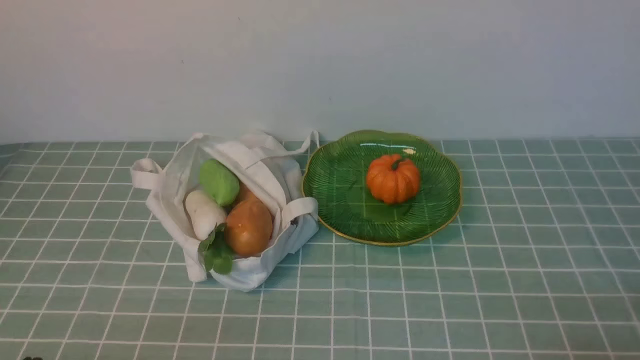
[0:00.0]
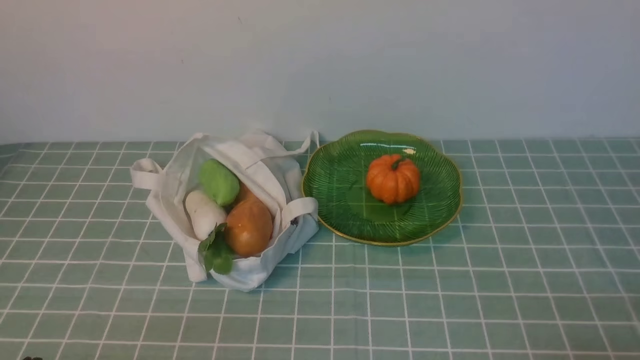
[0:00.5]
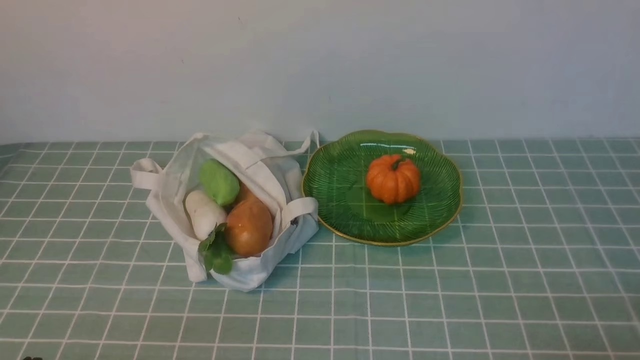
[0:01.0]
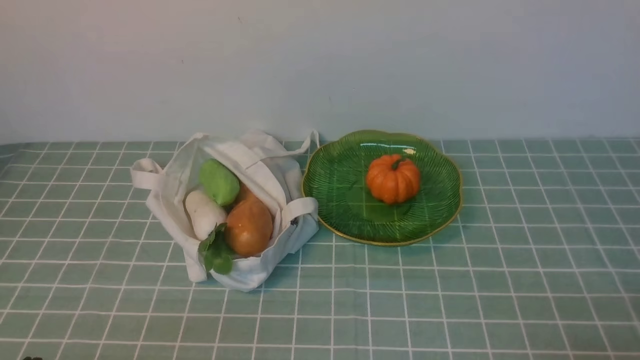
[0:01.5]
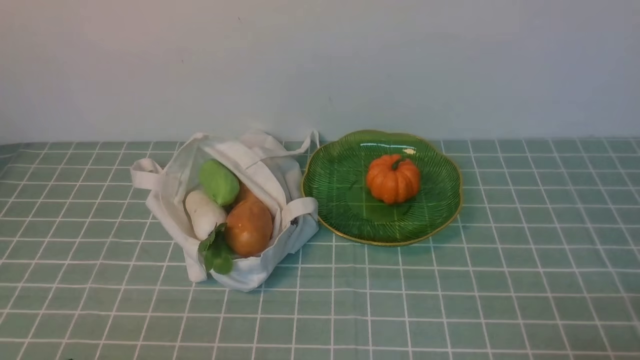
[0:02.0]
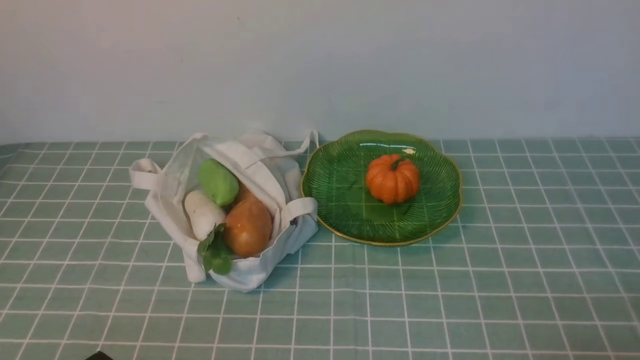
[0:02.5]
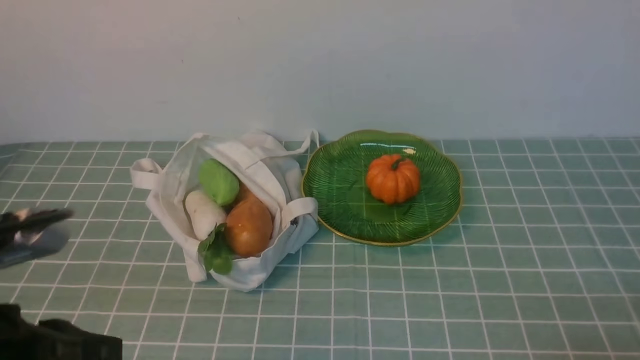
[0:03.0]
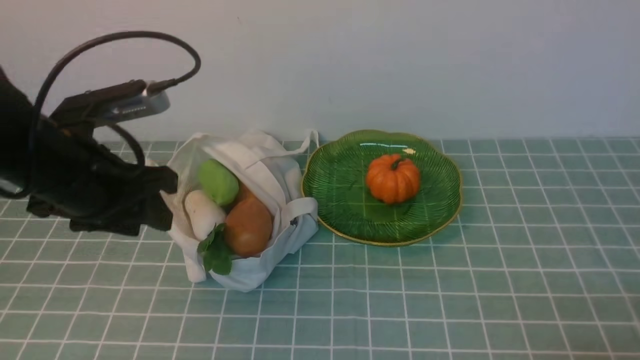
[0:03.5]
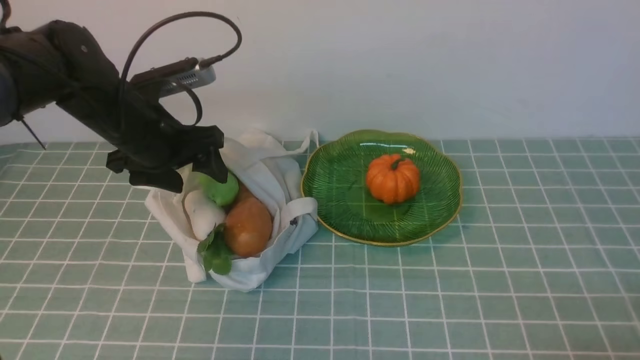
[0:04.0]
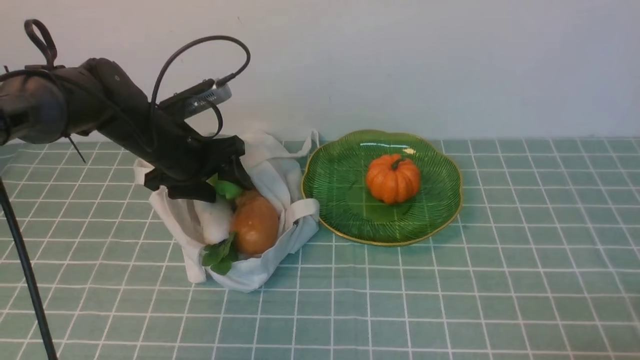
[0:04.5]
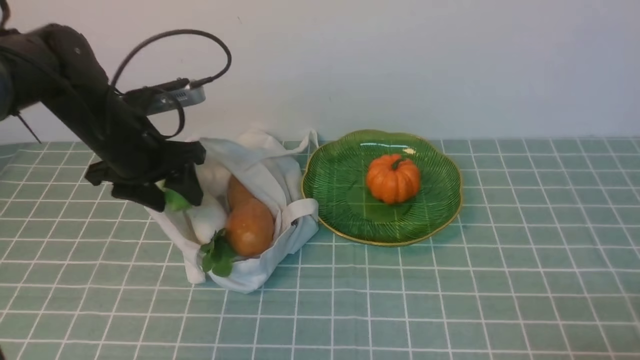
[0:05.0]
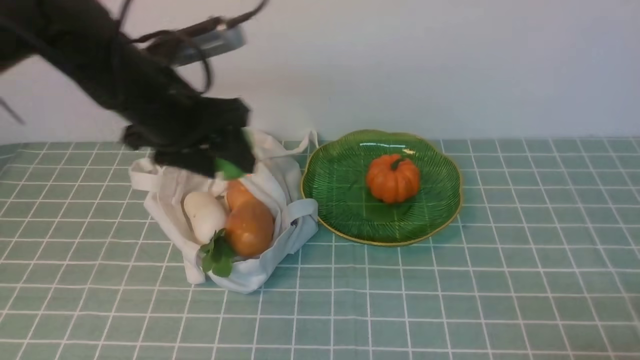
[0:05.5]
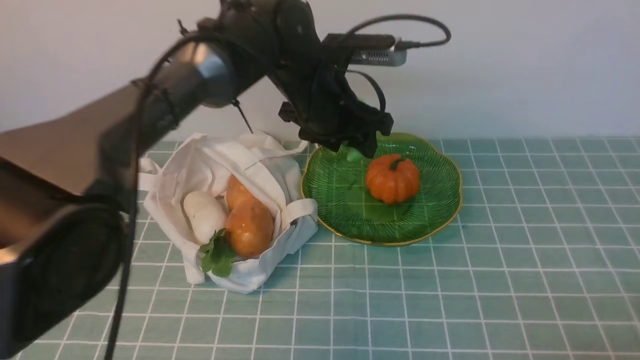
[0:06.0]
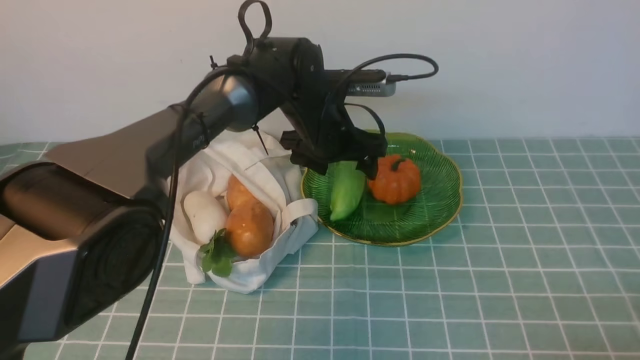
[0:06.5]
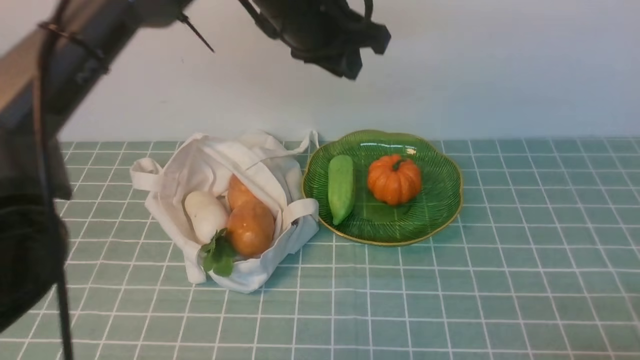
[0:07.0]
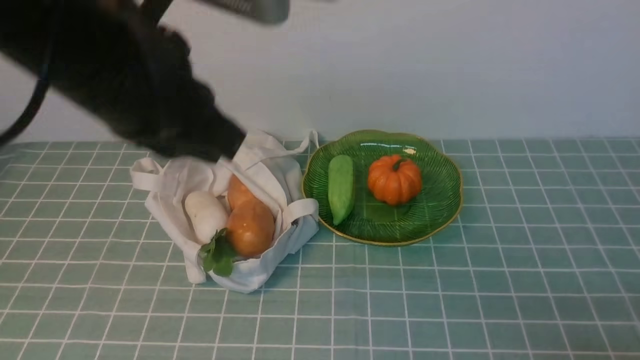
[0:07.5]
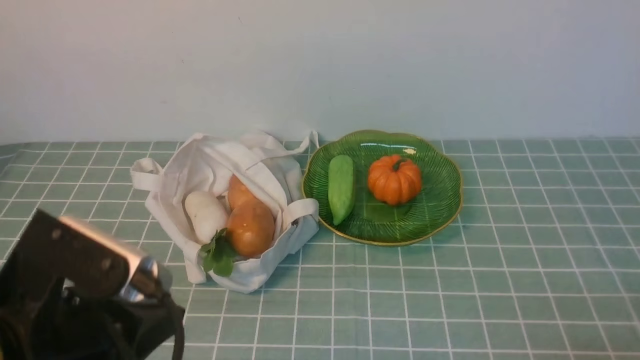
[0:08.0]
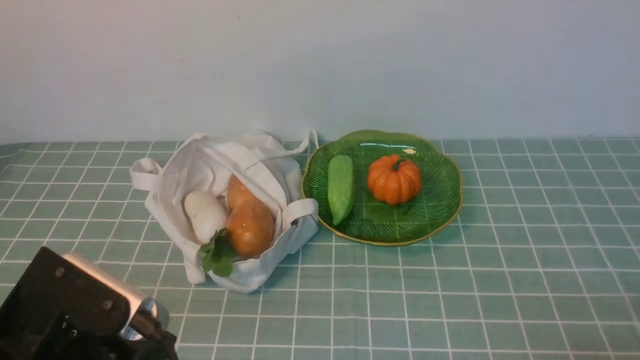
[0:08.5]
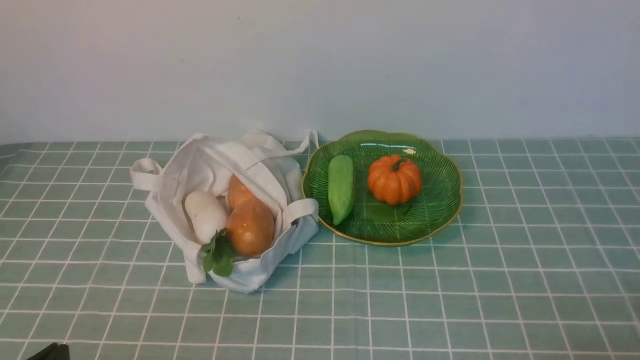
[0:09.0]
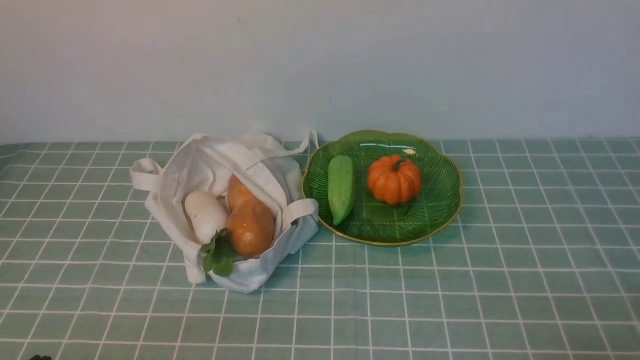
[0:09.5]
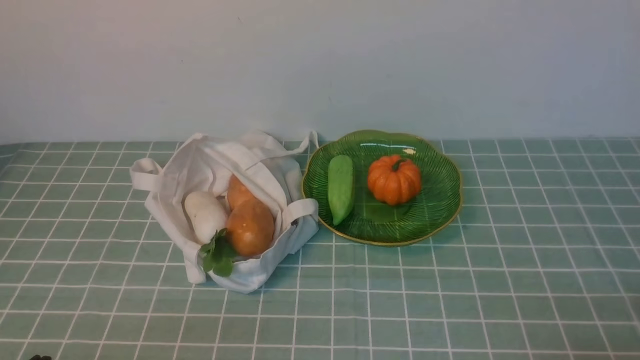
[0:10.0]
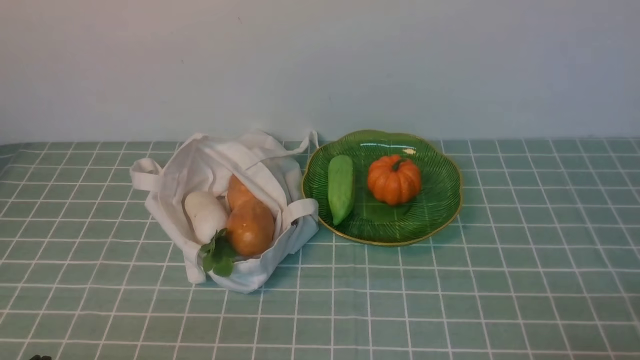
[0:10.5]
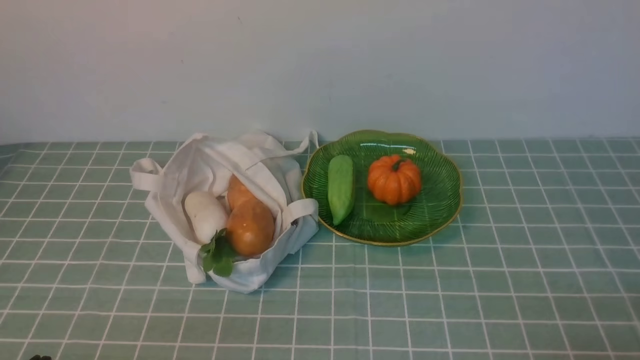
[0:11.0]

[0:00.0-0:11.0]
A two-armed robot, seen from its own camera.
Task of the whole recording: take vegetables from cloth bag on blue coffee tablecloth place on plate.
Step, 0:00.0 to 0:04.5: Grasp the bitter melon with left gripper.
Step, 0:05.0 to 0:06.5: Place the bitter melon on the plate with left gripper.
0:02.0 to 0:03.5: The left gripper moves forward and upward, approximately 25 cm, and opens up.
0:03.5 to 0:05.5: The left gripper is displaced forward by about 10 cm.
0:05.5 to 0:07.5: The left gripper is displaced upward, backward and to the right by roughly 15 cm, and closes.
0:07.5 to 0:09.0: The left gripper heads downward, backward and to the left, covering some 35 cm.
